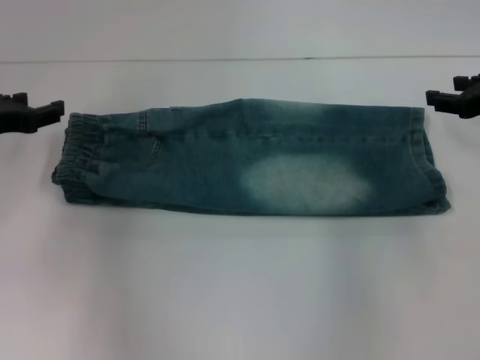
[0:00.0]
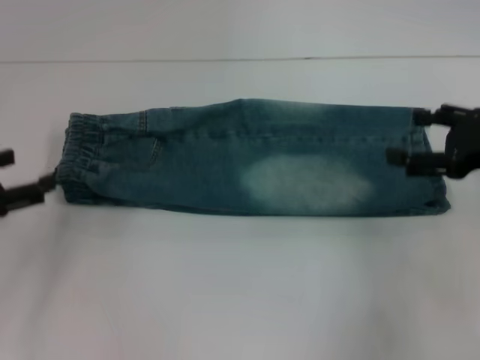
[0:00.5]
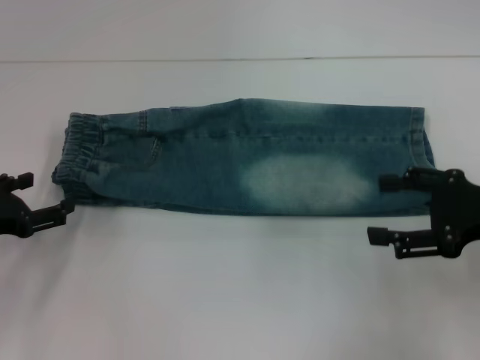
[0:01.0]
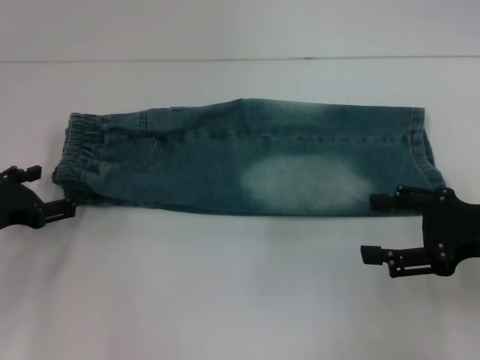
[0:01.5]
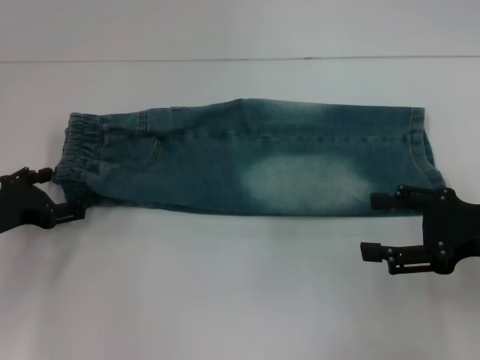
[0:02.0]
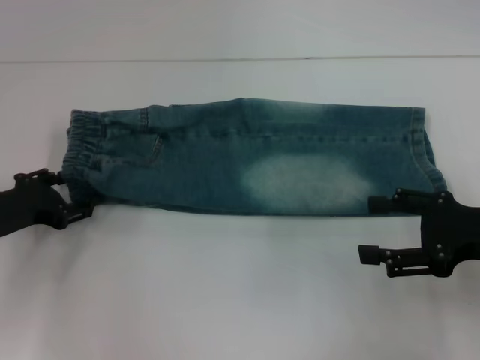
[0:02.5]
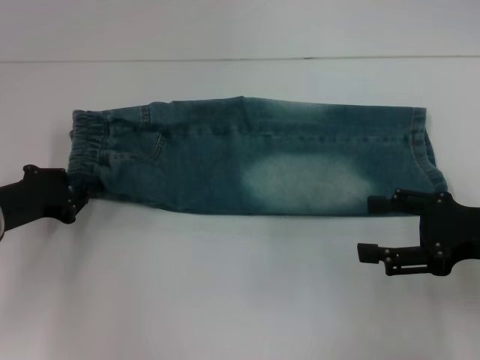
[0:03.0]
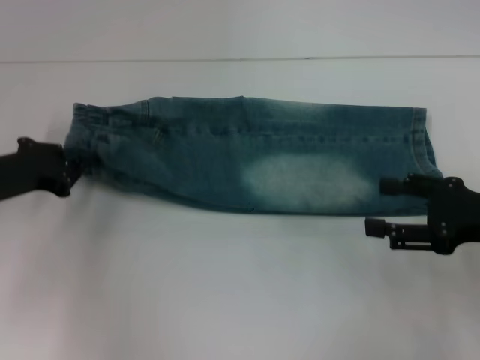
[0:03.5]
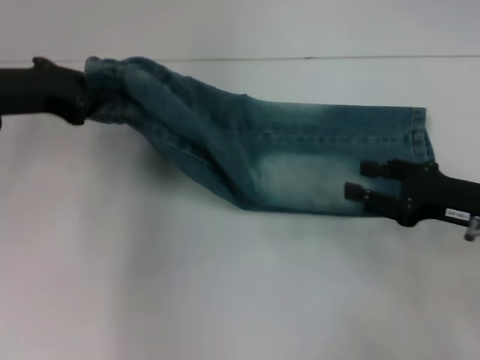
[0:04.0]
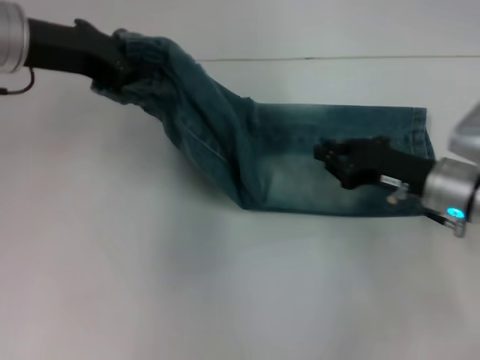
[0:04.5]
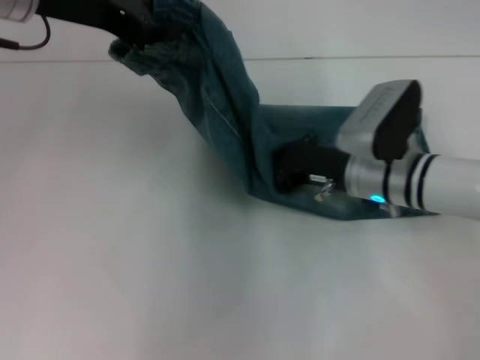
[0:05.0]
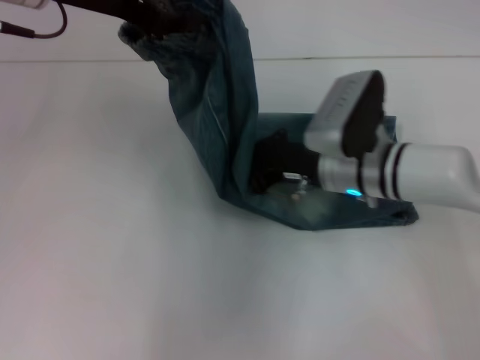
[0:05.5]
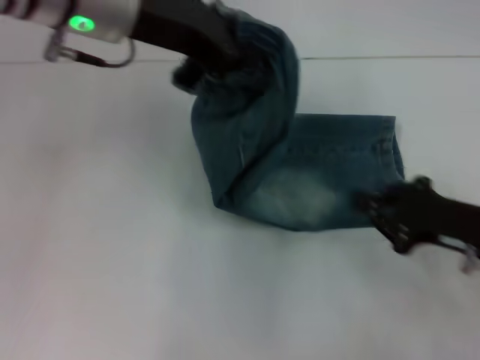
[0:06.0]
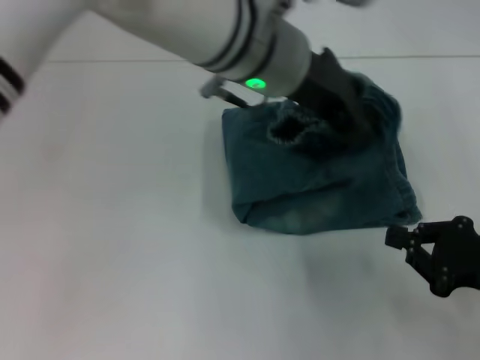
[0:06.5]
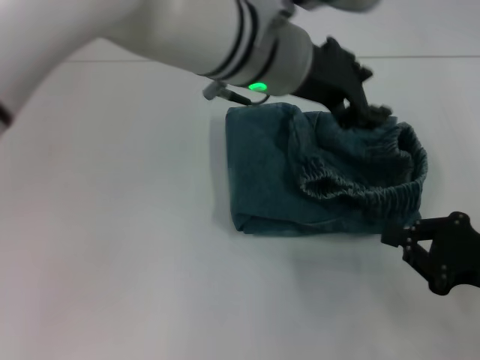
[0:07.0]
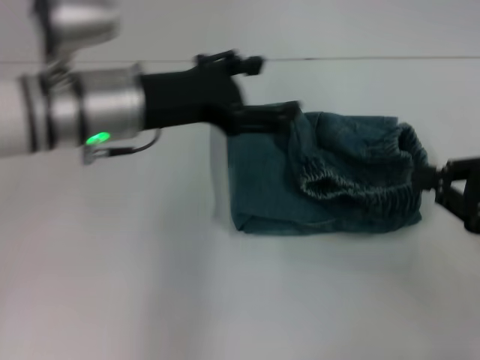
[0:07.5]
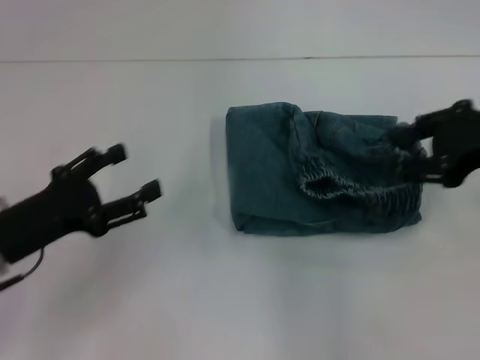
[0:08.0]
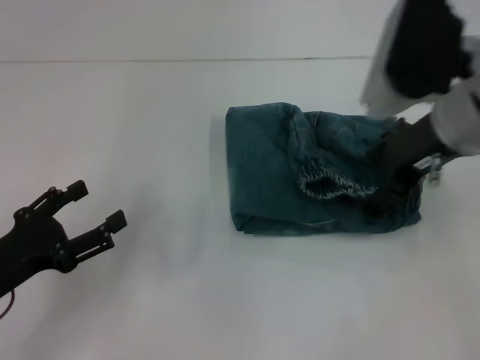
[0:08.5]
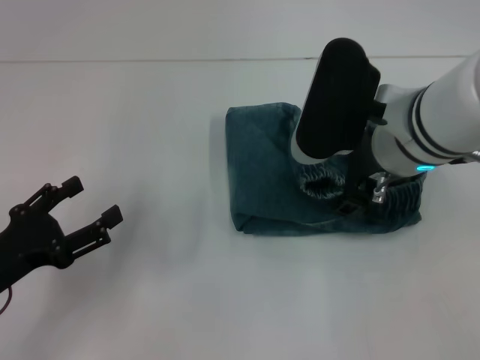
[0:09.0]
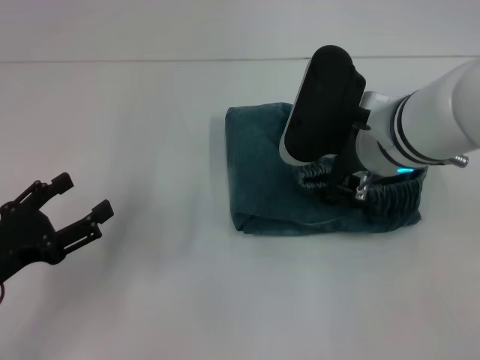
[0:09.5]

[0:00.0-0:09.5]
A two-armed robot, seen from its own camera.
Step, 0:00.5 to 0:03.0: Hold the waistband with your left hand.
Step, 0:03.5 to 0:05.5: Press the middle of the pants with your right hand.
Step, 0:06.0 to 0:07.0: Fold to the right with your left hand.
0:00.0 to 0:02.0: The right gripper goes roughly 10 cm backward, and opens. Meanwhile the left gripper moves downward and backward, approximately 10 cm.
0:02.0 to 0:04.0: The left gripper heads upward and forward, covering approximately 15 cm, and closes.
0:04.0 to 0:05.5: The right gripper shifts roughly 20 cm to the left and forward, and closes, while the left gripper is displaced upward and to the right by approximately 15 cm.
0:05.5 to 0:07.5: The left gripper moves downward, about 10 cm, moves some 20 cm to the right and comes back, and opens. The right gripper shifts roughly 25 cm to the right and backward.
0:07.5 to 0:09.5: The left gripper shifts about 25 cm to the left, backward and downward; the right gripper moves to the left, about 20 cm, and opens.

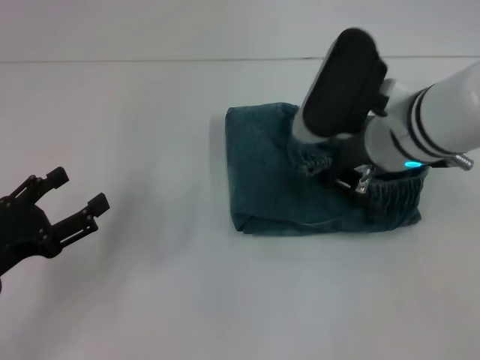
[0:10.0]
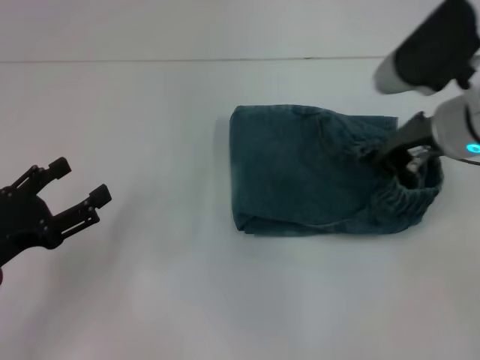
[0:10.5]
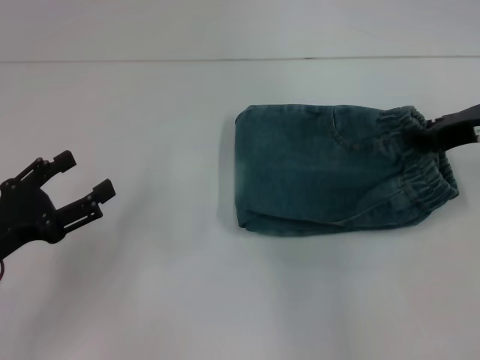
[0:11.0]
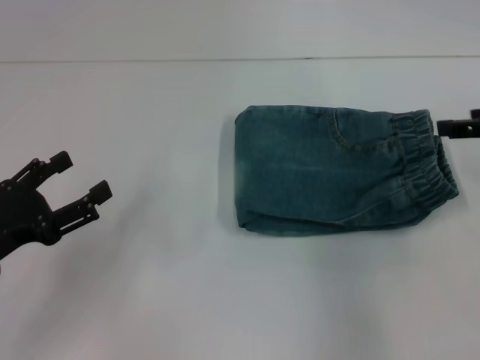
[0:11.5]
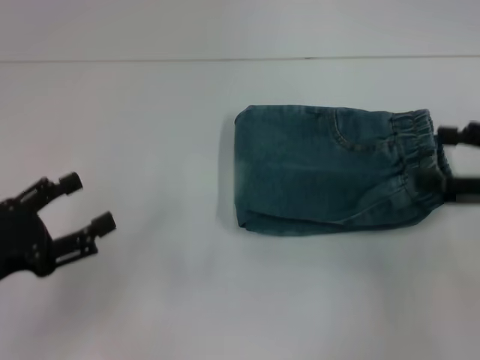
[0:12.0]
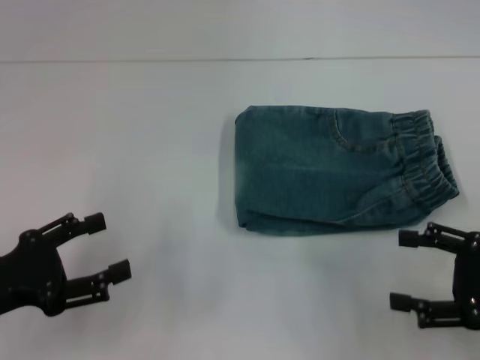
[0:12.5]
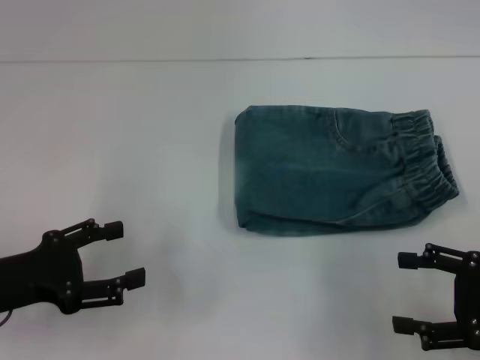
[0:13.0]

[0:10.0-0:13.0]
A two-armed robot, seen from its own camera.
0:10.0 to 0:11.5: The right gripper heads to the right, covering approximately 20 cm.
0:11.5 to 0:13.0: The right gripper goes some 15 cm backward and downward, and opens its fingers.
